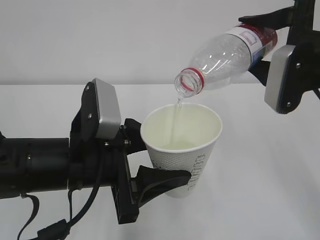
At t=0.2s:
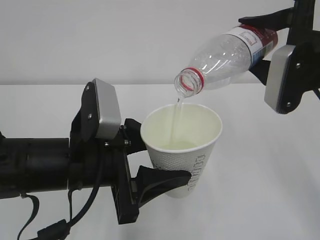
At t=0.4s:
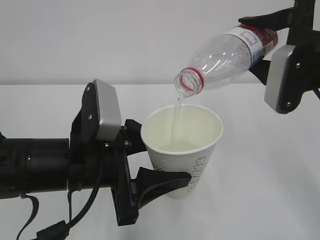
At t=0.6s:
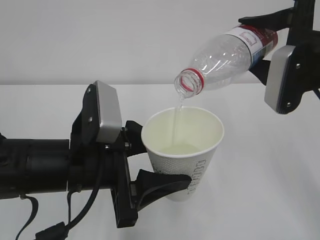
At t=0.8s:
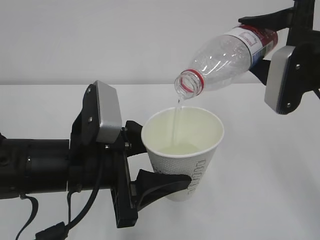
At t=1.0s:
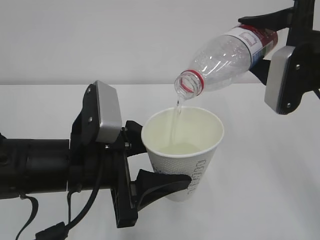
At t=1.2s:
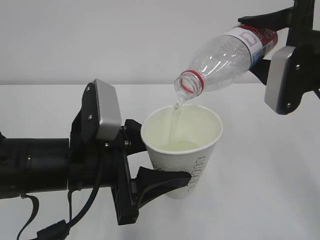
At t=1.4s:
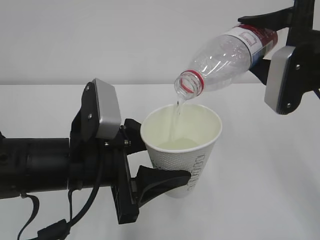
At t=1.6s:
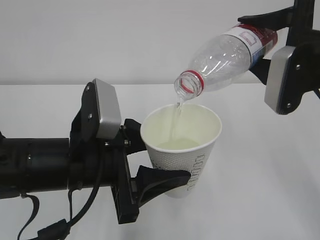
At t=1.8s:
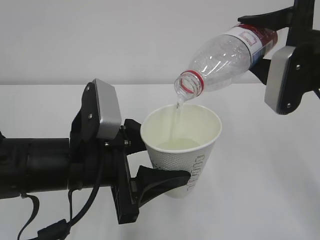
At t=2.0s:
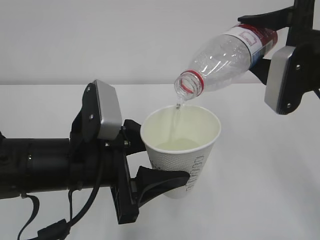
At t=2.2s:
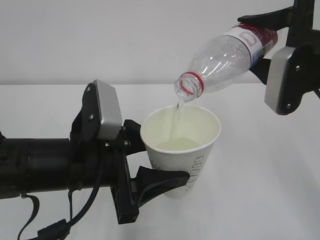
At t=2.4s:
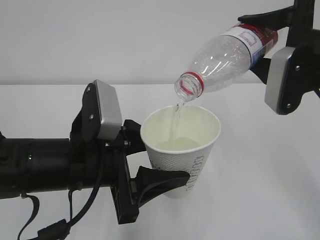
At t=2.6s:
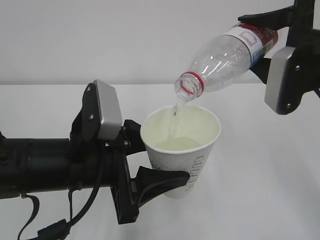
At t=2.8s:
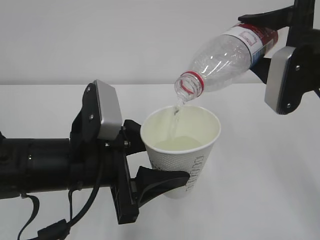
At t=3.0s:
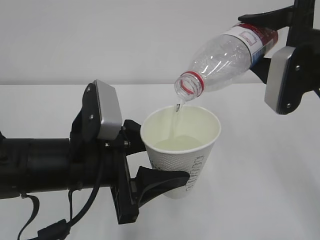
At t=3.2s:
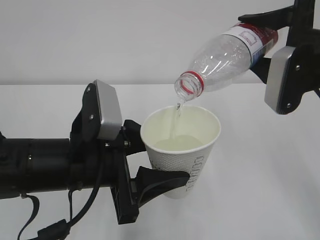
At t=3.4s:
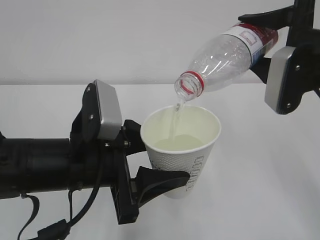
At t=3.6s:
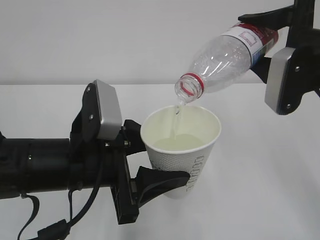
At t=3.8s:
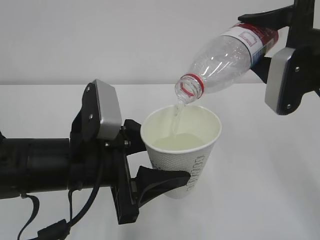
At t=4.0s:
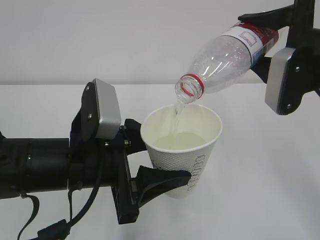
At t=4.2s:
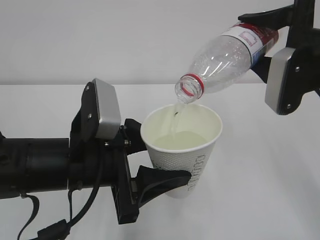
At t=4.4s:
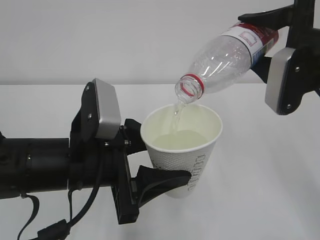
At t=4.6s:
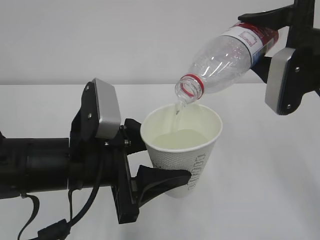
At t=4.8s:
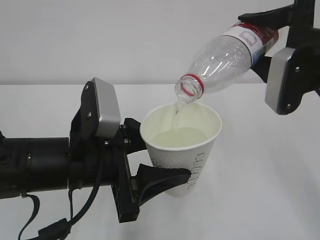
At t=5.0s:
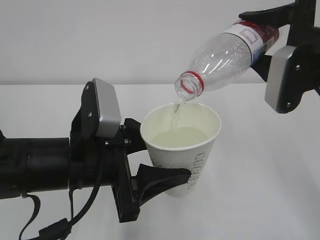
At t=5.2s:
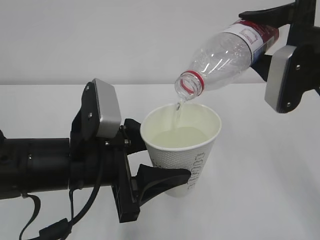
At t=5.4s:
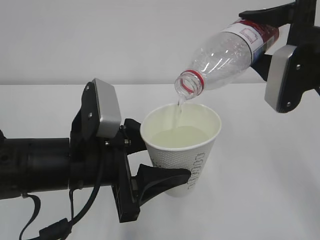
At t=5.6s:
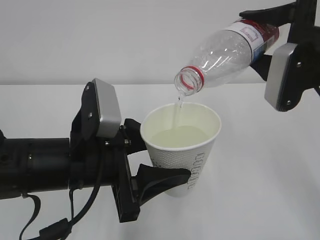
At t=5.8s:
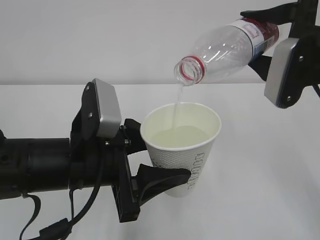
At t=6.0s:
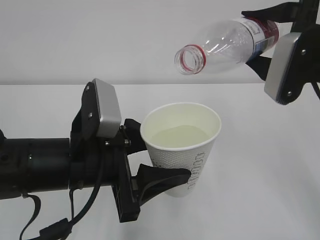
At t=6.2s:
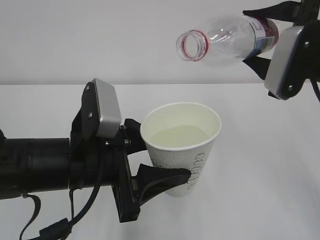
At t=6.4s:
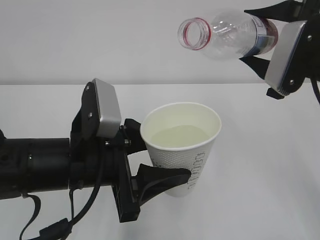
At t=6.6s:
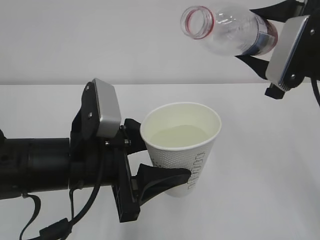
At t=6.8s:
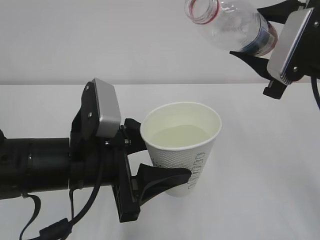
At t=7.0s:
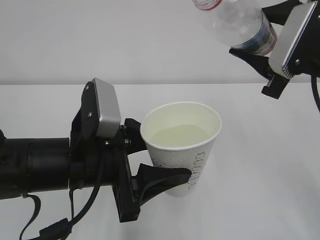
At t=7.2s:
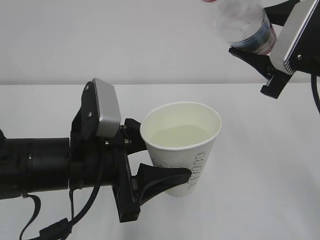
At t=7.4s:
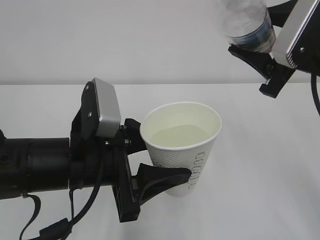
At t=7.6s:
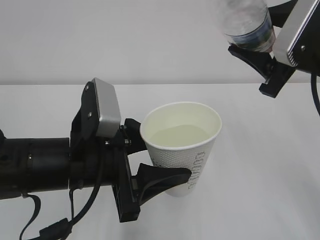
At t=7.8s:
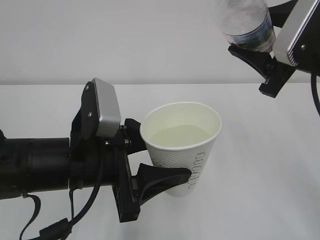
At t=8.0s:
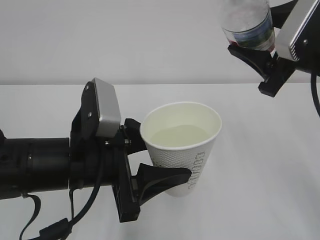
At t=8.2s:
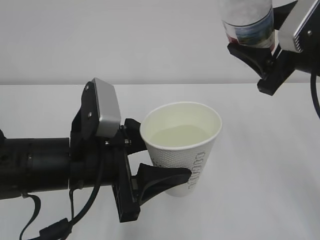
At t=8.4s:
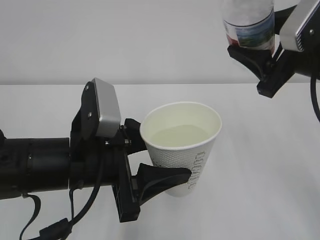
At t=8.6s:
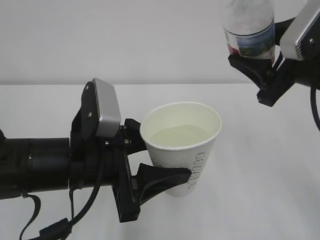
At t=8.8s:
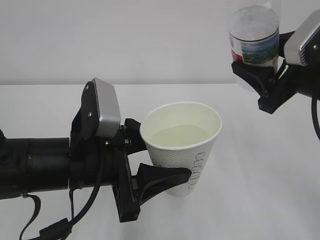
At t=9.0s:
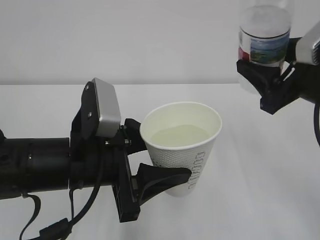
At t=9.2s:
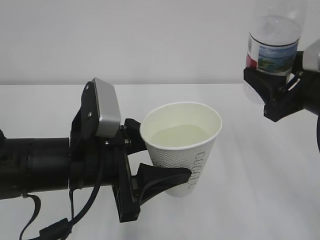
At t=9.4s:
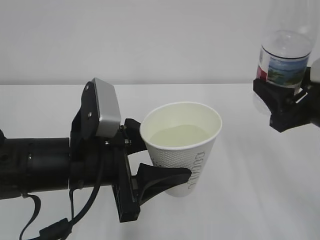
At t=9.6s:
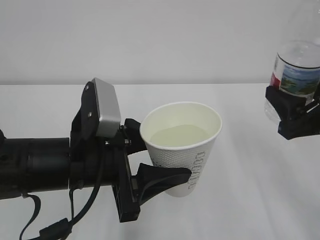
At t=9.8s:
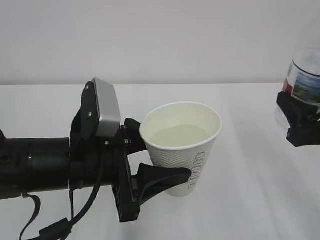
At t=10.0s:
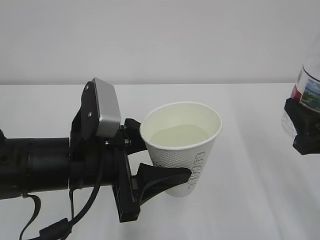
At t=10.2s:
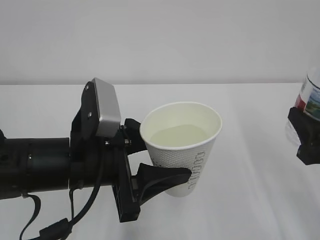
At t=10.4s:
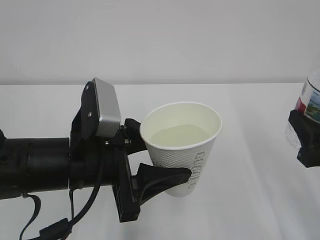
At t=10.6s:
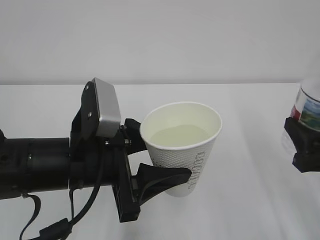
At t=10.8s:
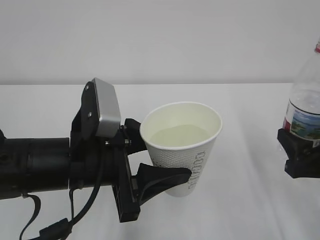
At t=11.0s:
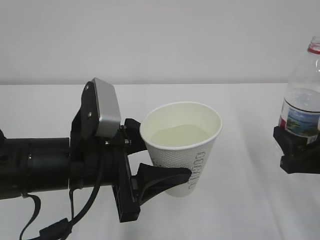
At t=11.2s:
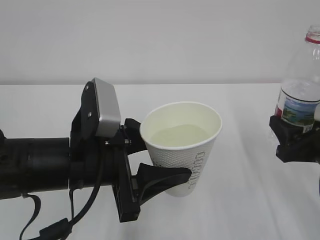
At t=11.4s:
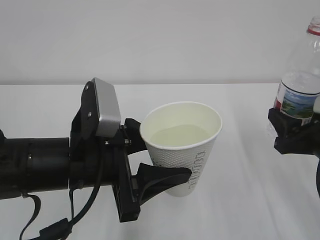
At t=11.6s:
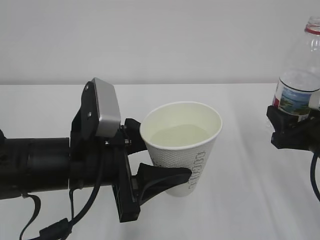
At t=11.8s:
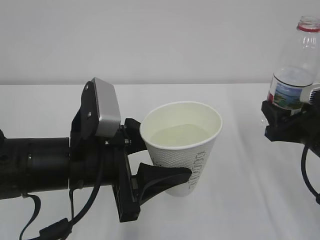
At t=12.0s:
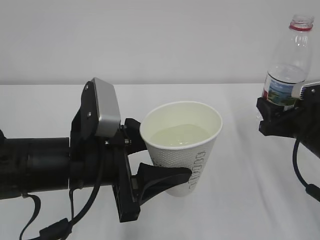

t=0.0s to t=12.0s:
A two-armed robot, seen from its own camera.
t=0.0s to t=4.4s: Neither gripper changes place.
t=4.4s to t=6.0s: The grippers stay close to where they were, moving slightly.
t=9.0s to t=10.4s: The right gripper is displaced backward and downward by roughly 10 cm.
t=10.4s to t=12.0s: The right gripper heads forward, covering some 10 cm.

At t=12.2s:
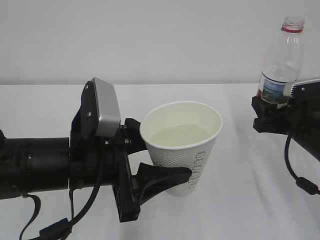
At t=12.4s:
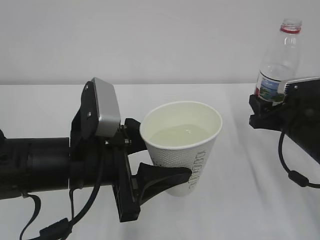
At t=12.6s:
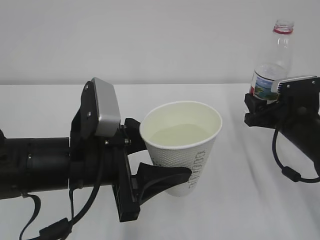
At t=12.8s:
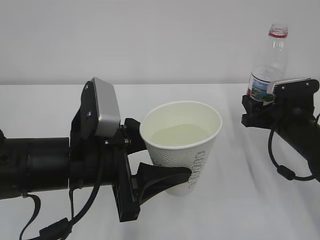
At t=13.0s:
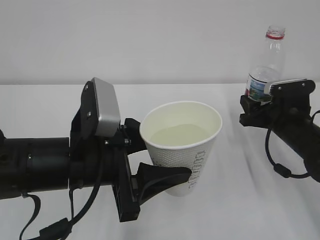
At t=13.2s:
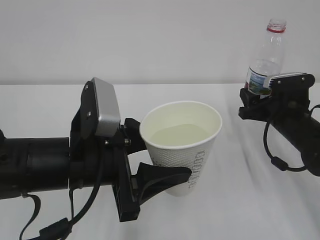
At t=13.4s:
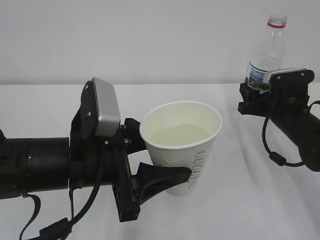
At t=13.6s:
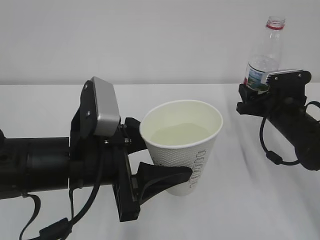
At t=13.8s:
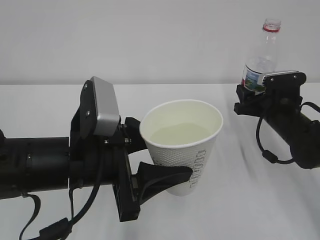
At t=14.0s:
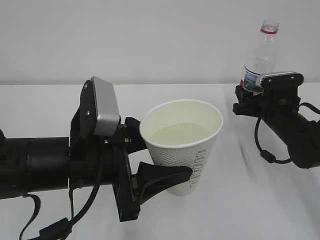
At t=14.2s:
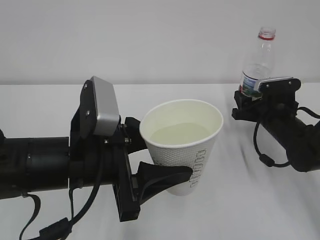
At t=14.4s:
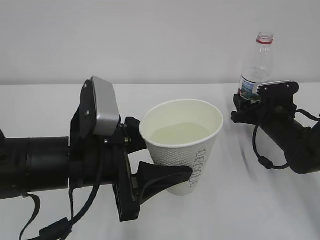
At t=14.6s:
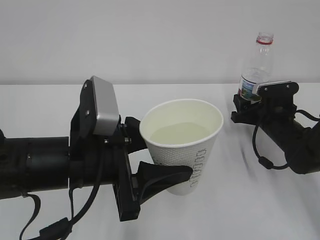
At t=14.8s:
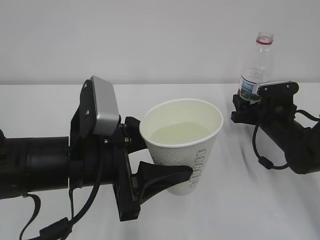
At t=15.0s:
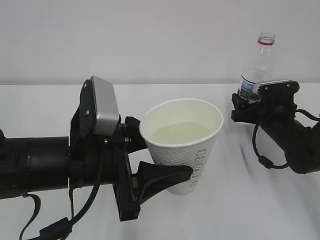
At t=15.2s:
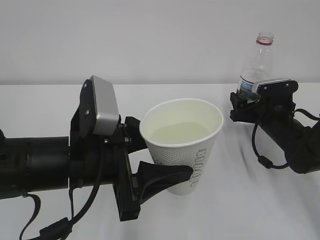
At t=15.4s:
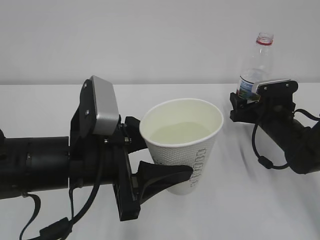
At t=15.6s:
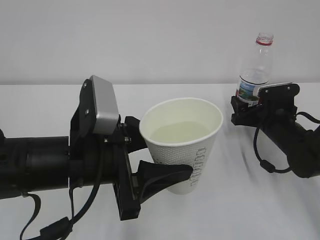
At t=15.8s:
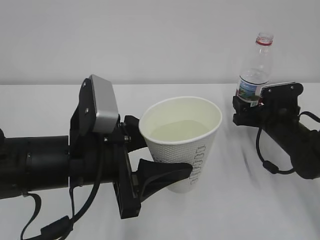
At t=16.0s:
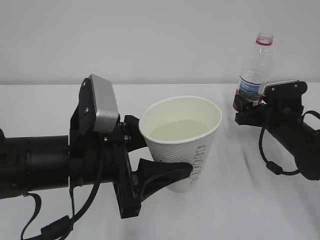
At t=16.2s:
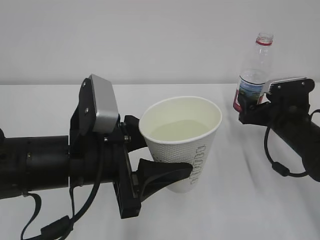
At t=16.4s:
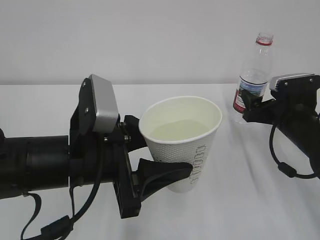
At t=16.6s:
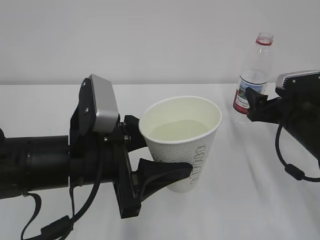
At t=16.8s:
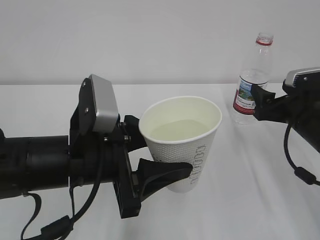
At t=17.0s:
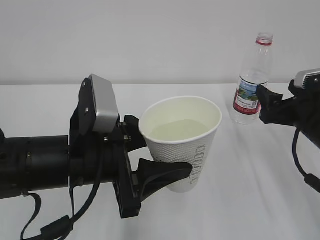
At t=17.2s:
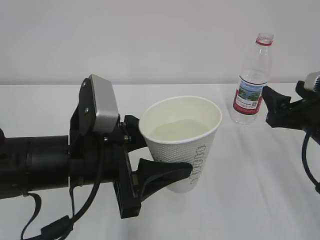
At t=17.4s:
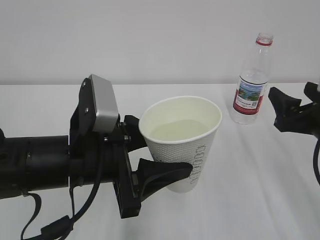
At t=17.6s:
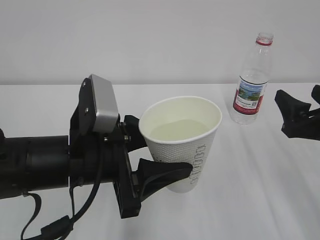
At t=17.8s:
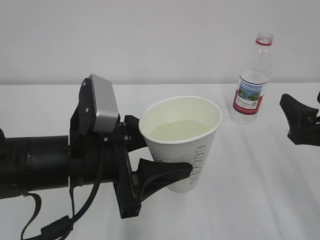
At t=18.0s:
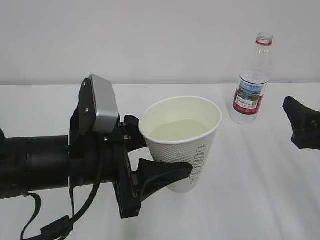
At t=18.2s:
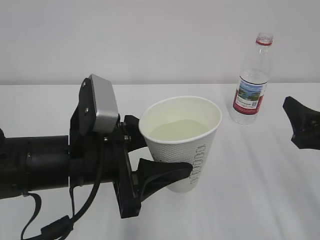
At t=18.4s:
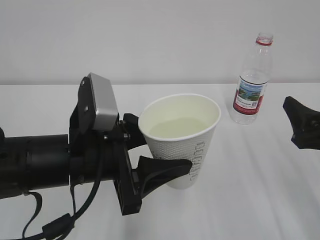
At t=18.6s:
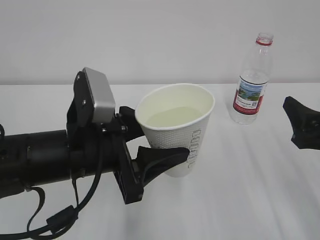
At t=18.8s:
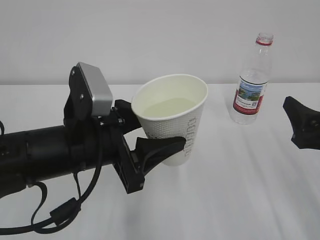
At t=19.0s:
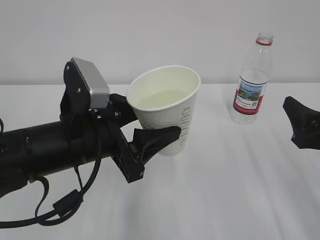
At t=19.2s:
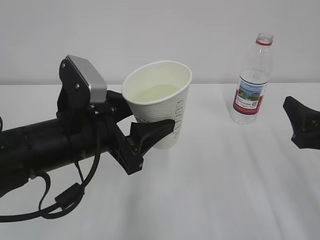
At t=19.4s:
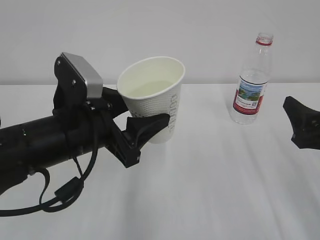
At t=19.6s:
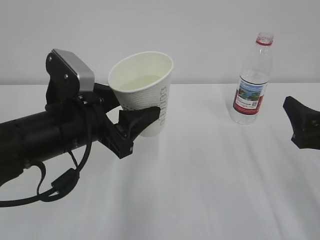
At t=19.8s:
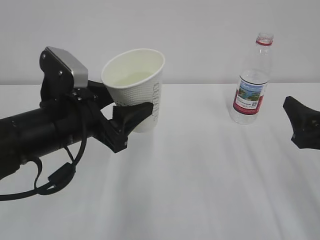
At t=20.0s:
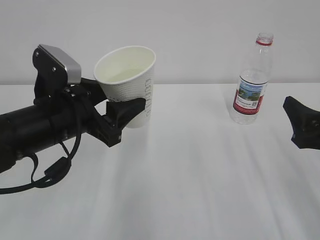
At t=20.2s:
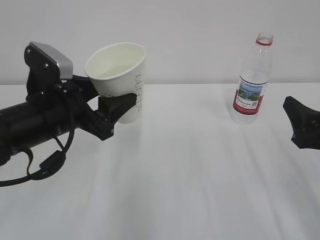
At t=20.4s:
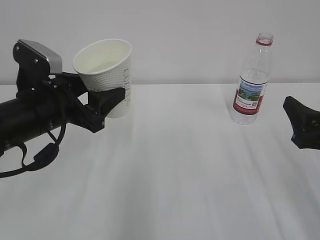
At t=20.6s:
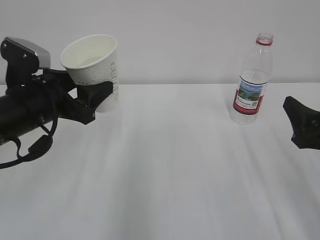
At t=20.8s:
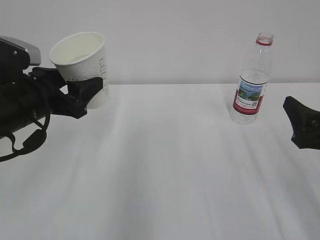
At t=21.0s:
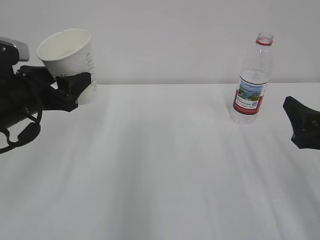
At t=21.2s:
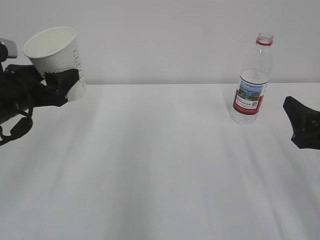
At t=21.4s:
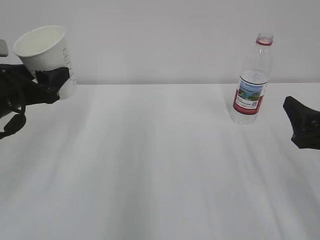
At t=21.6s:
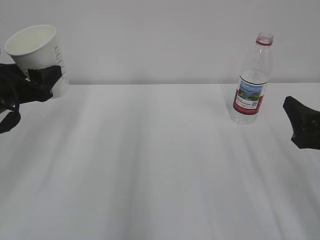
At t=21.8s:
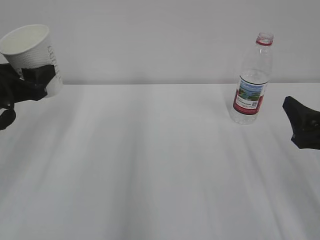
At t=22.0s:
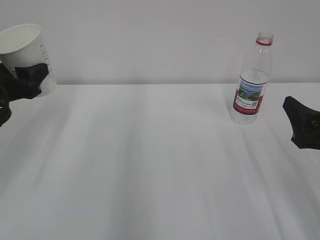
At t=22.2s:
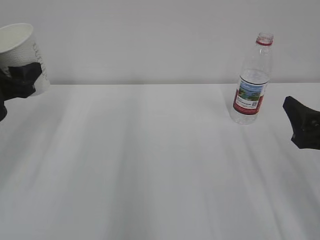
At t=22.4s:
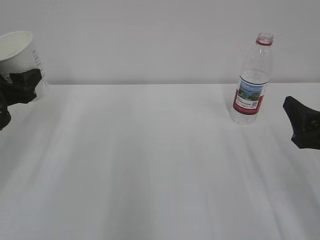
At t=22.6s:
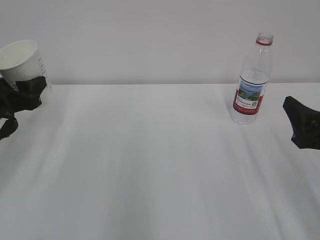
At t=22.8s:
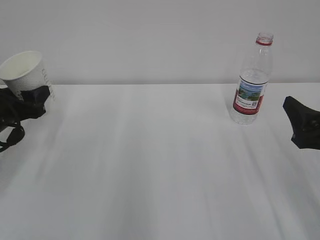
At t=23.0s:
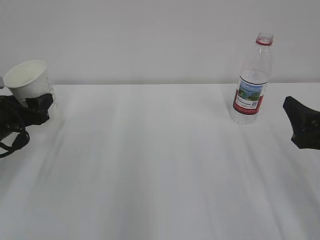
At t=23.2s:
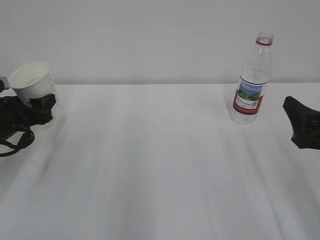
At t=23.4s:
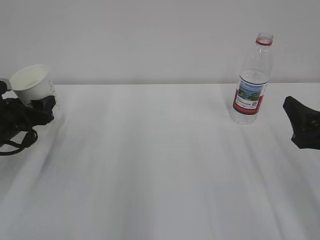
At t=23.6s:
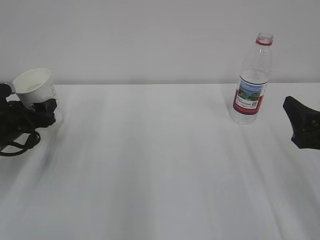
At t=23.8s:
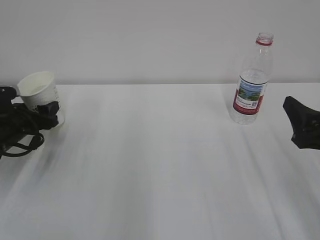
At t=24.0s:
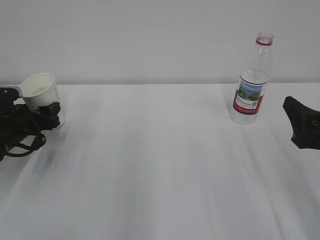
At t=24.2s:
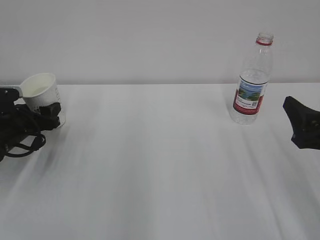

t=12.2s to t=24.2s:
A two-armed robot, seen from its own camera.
t=12.2s to t=13.8s: The right gripper goes approximately 10 cm forward.
t=13.8s to t=15.2s: The right gripper opens.
t=15.2s to t=16.6s: The right gripper travels backward and upward by approximately 10 cm.
t=16.6s to t=18.2s: The right gripper heads backward and upward, covering approximately 15 cm.
t=18.2s to t=19.8s: The left gripper moves roughly 5 cm.
t=19.8s to t=21.2s: The left gripper is displaced to the left and forward by roughly 10 cm.
t=21.2s to t=22.6s: The left gripper moves to the left, roughly 5 cm.
t=22.6s to t=24.2s: The left gripper is displaced downward by approximately 10 cm.
